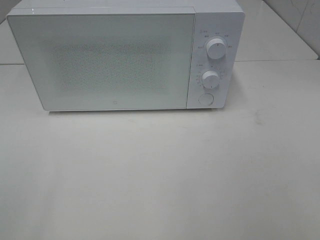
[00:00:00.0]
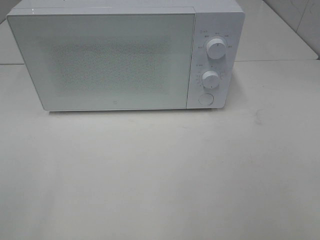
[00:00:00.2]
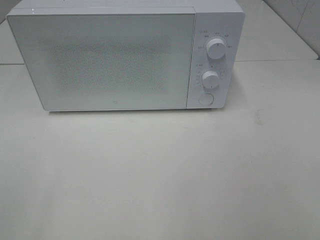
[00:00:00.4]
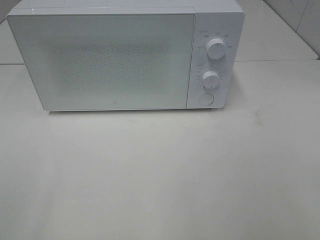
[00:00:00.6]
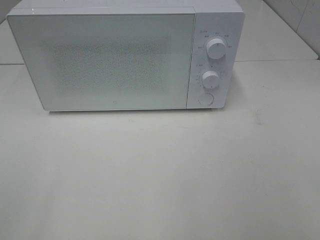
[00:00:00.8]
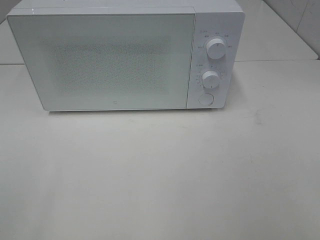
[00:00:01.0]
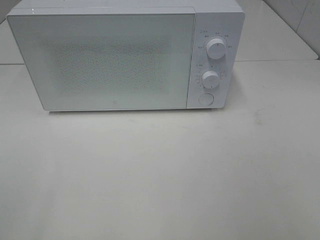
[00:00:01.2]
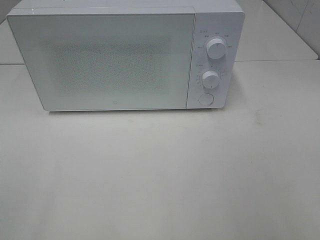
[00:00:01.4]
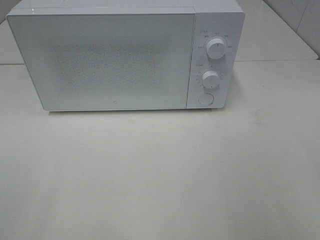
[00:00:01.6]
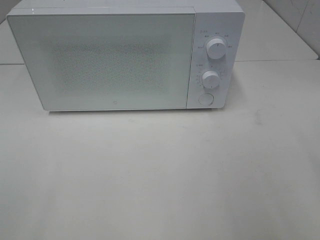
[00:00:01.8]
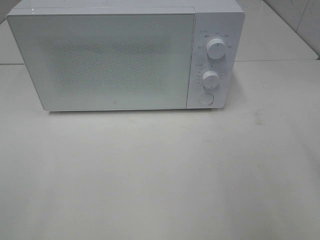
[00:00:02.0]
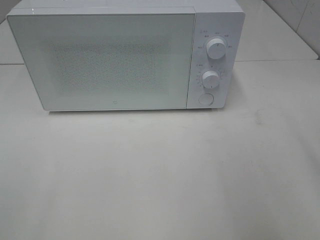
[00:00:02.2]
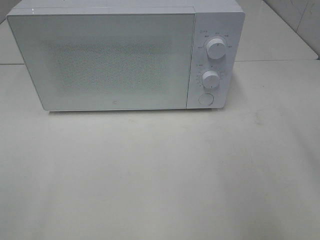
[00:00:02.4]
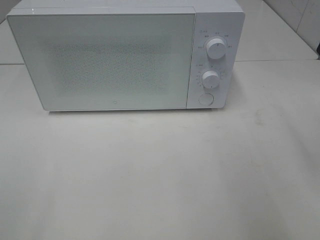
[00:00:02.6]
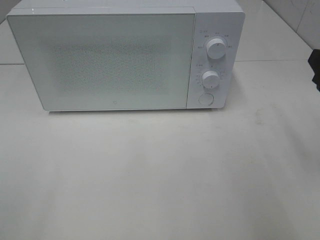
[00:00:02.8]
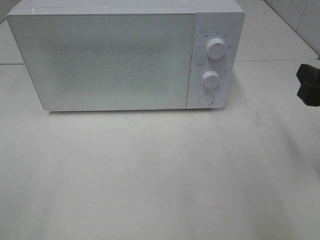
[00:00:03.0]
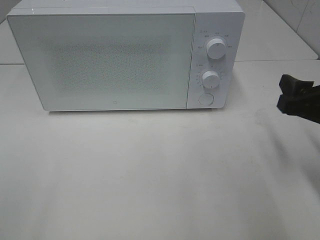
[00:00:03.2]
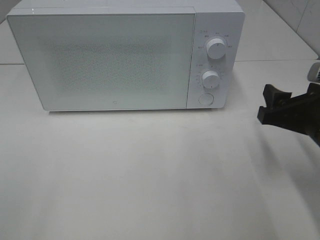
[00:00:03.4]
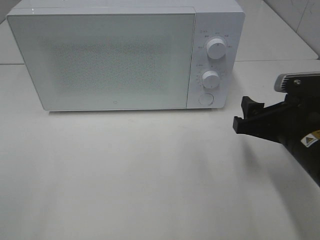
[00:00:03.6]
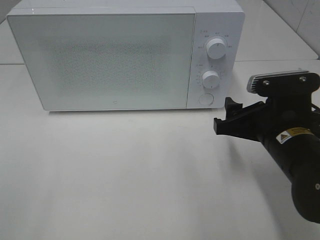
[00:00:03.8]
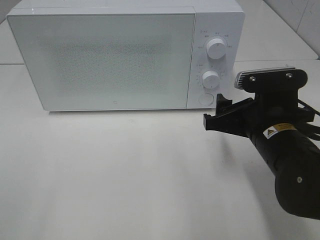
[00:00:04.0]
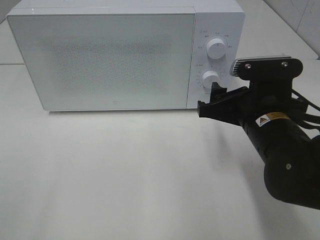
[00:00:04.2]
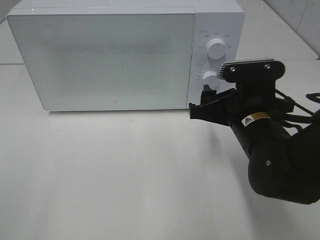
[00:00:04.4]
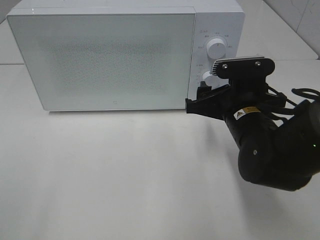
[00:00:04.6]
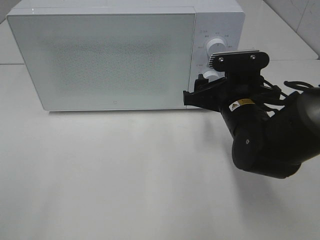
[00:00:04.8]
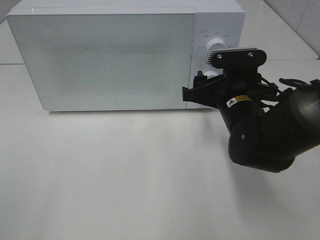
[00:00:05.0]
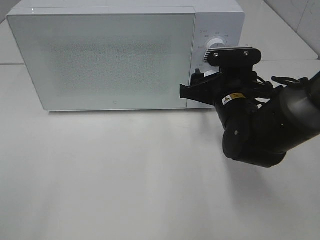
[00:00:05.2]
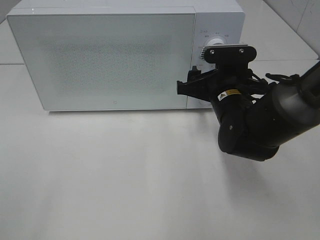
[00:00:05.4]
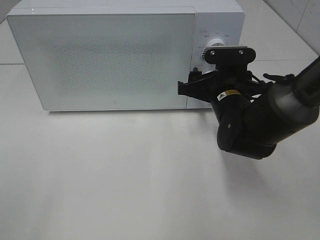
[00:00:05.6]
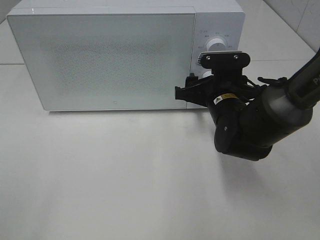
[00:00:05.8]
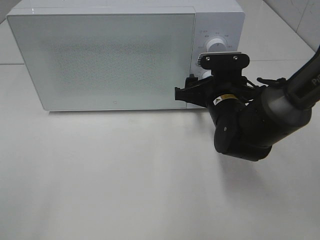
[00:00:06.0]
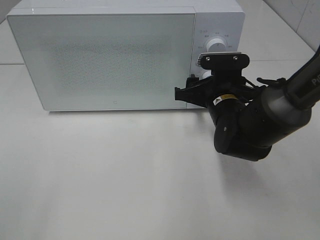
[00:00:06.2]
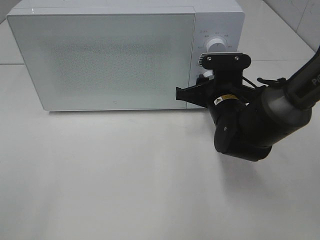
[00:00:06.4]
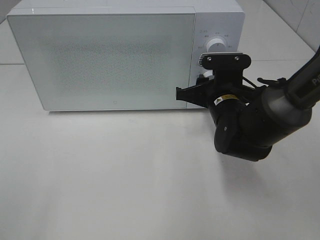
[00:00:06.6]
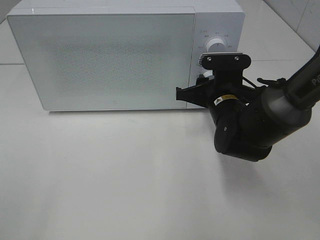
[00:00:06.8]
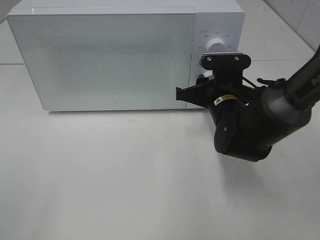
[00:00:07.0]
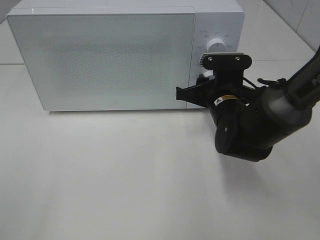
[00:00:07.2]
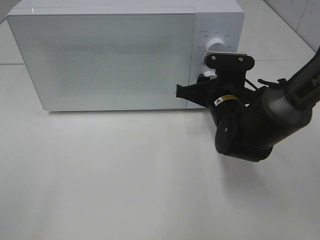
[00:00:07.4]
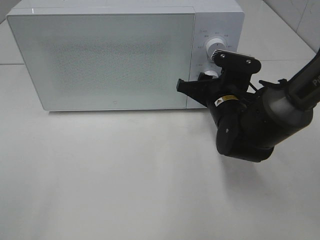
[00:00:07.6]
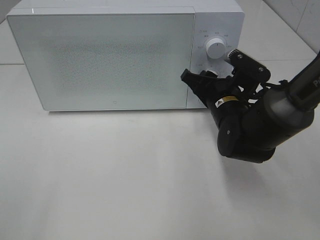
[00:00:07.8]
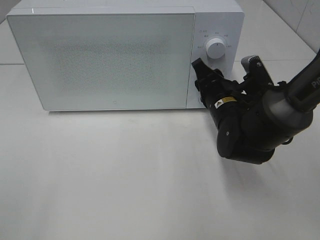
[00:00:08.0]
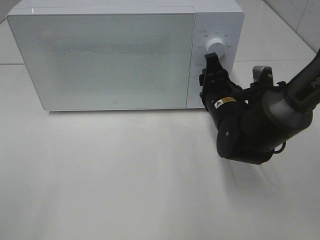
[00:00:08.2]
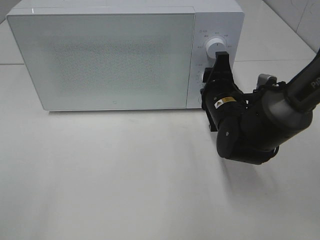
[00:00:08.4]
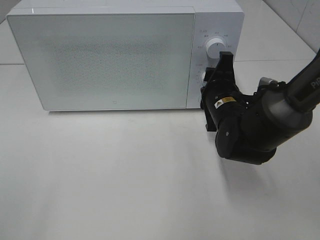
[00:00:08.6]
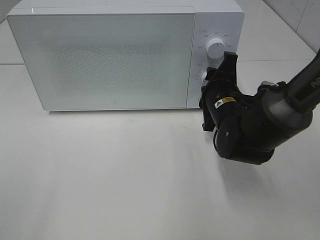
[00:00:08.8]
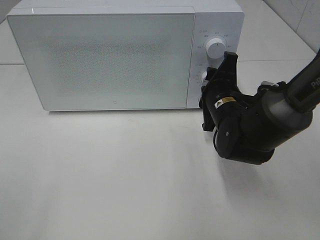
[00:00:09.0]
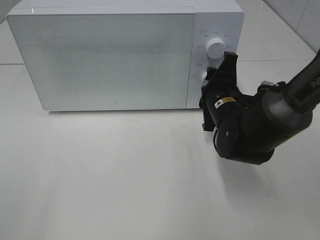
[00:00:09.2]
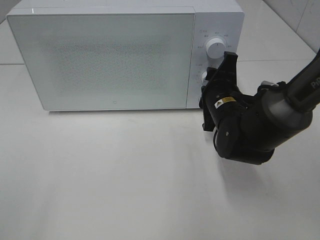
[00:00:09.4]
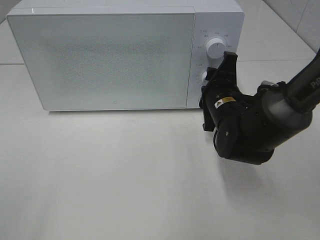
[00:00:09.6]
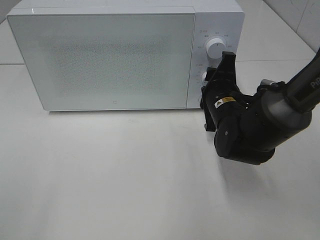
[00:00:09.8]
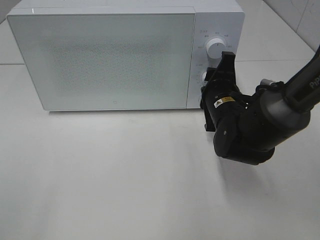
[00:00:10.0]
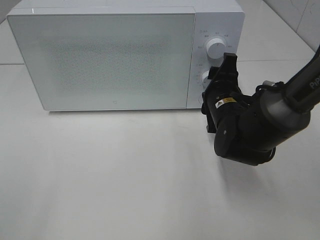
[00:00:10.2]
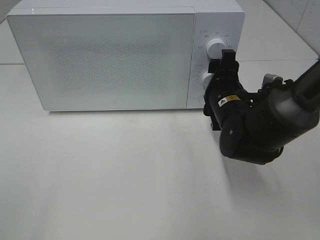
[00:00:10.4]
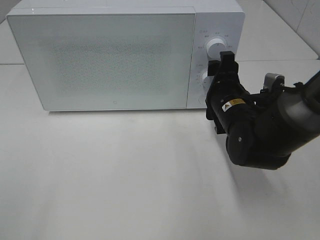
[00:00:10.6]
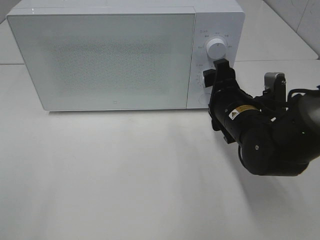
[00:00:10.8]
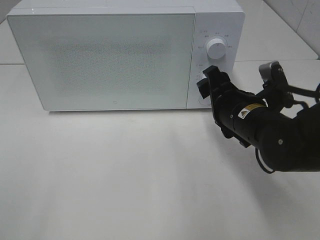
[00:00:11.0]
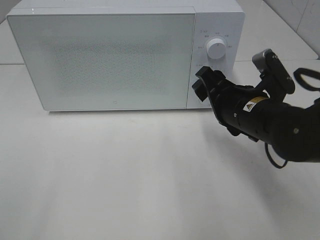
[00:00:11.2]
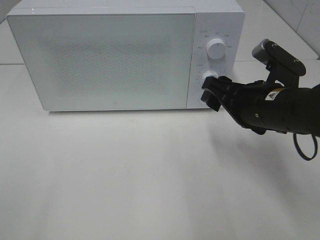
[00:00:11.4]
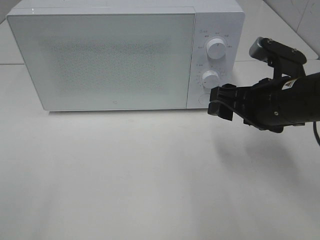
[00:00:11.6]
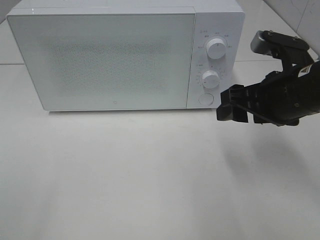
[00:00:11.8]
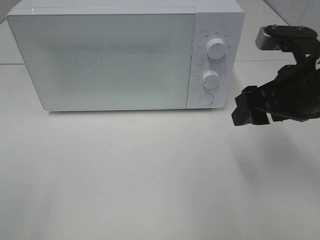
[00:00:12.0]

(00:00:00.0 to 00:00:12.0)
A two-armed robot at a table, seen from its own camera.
Task of the whole recording: Heat the burger.
Step, 00:00:00.0 - 00:00:10.2: Right hand: twist timer button.
00:00:01.6 - 00:00:03.0: The right gripper travels forward and downward by approximately 15 cm.
00:00:03.0 - 00:00:04.4: The right gripper heads to the left, covering approximately 15 cm.
00:00:04.4 - 00:00:06.0: The right gripper heads forward, covering some 10 cm.
00:00:06.0 - 00:00:07.6: The right gripper closes.
00:00:09.0 - 00:00:10.4: There are only small adjustments of the grippers.
00:00:10.4 - 00:00:12.0: The right gripper travels upward, backward and to the right by approximately 15 cm.

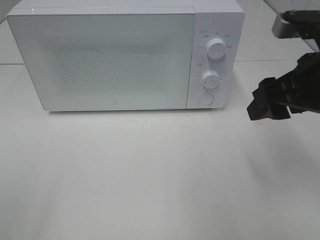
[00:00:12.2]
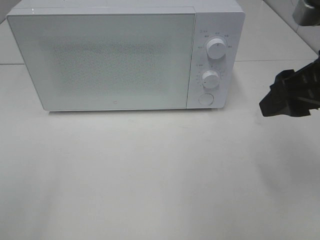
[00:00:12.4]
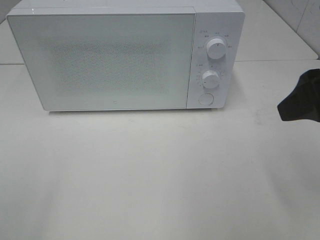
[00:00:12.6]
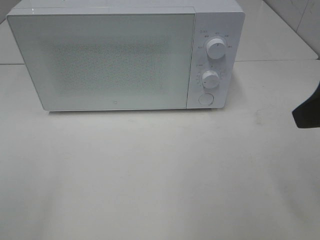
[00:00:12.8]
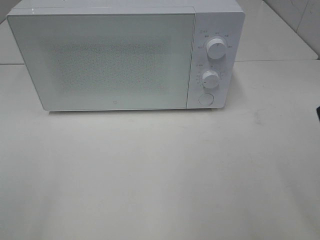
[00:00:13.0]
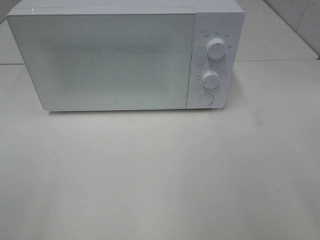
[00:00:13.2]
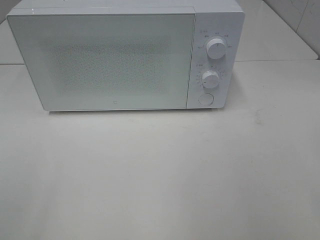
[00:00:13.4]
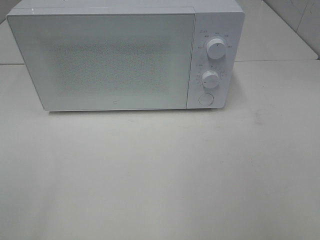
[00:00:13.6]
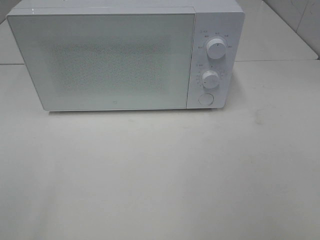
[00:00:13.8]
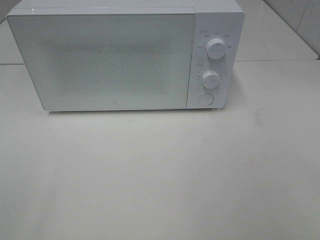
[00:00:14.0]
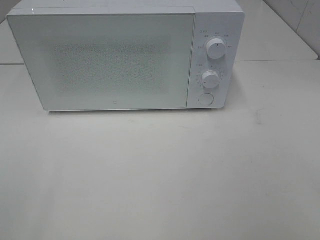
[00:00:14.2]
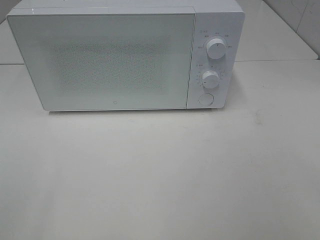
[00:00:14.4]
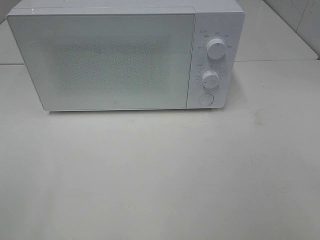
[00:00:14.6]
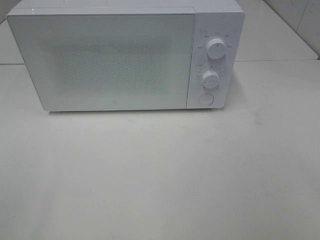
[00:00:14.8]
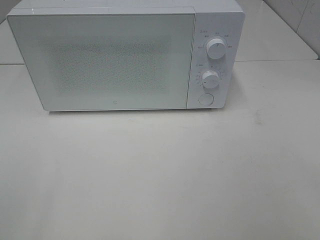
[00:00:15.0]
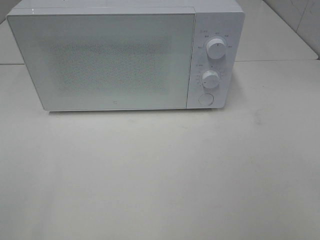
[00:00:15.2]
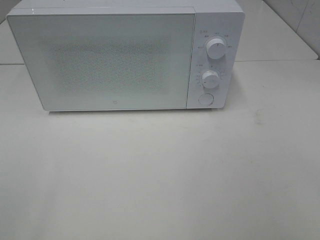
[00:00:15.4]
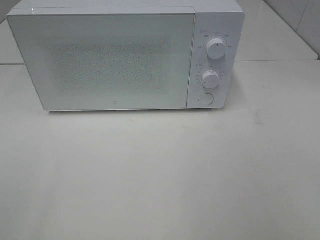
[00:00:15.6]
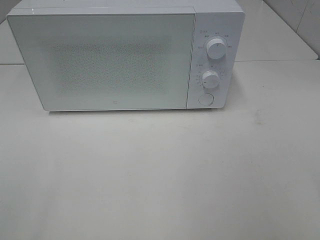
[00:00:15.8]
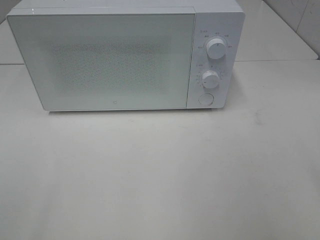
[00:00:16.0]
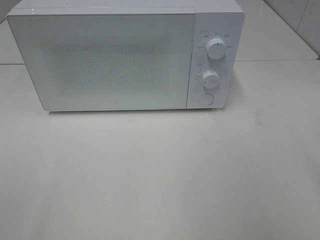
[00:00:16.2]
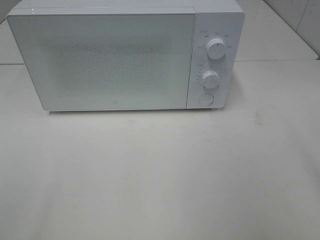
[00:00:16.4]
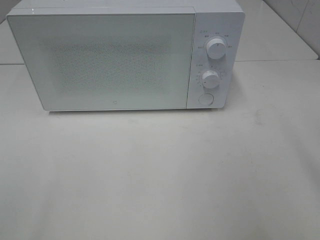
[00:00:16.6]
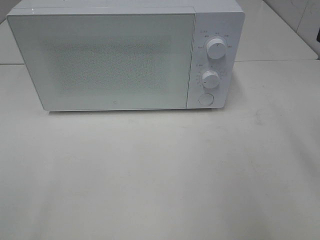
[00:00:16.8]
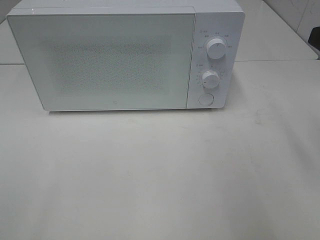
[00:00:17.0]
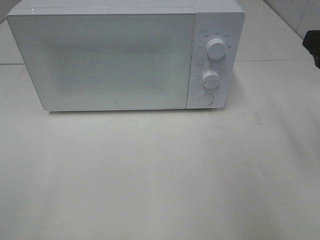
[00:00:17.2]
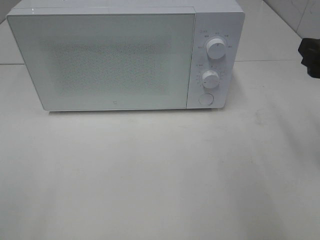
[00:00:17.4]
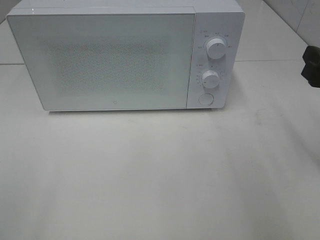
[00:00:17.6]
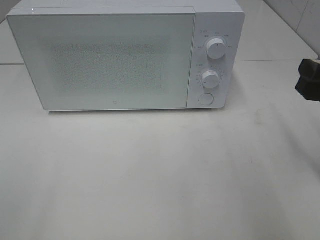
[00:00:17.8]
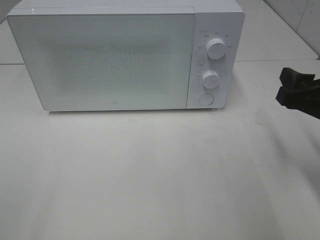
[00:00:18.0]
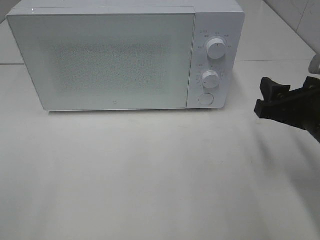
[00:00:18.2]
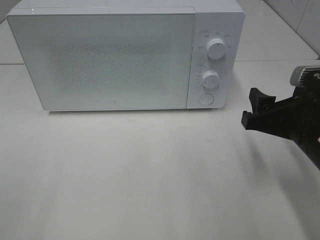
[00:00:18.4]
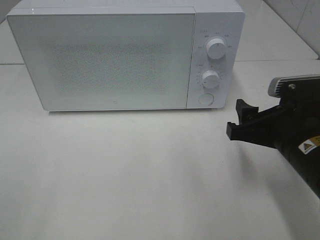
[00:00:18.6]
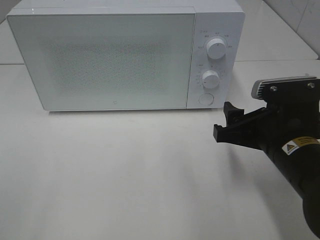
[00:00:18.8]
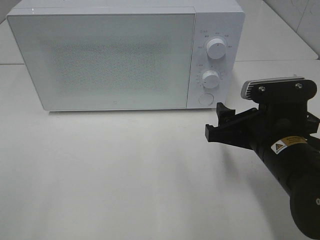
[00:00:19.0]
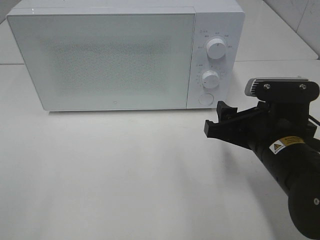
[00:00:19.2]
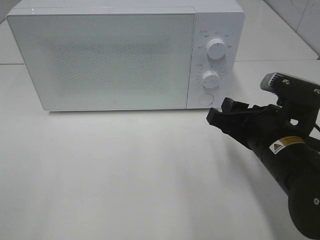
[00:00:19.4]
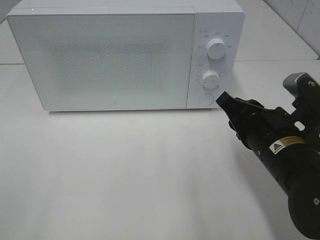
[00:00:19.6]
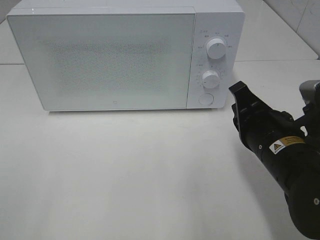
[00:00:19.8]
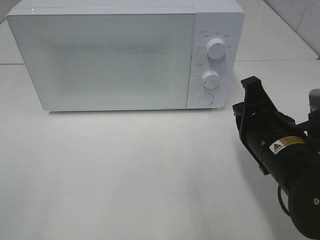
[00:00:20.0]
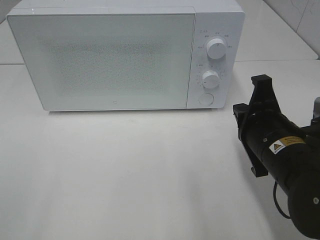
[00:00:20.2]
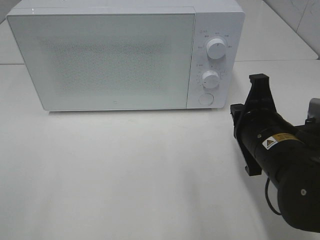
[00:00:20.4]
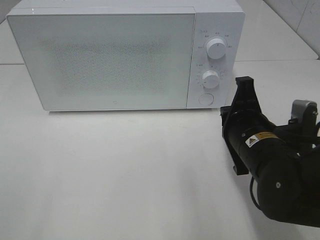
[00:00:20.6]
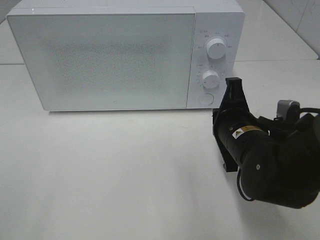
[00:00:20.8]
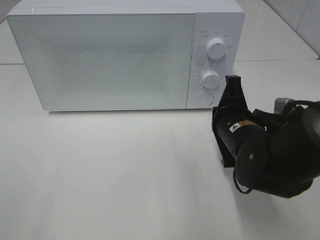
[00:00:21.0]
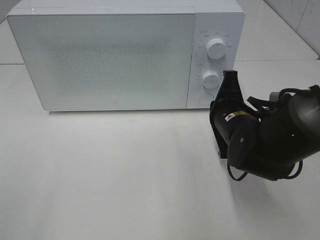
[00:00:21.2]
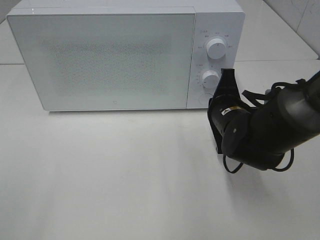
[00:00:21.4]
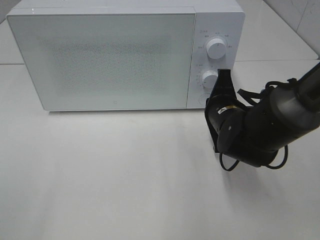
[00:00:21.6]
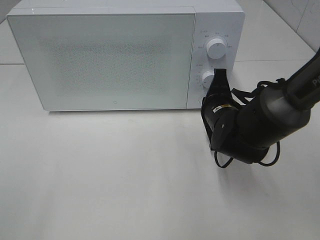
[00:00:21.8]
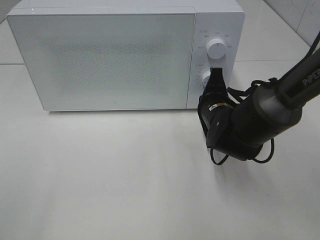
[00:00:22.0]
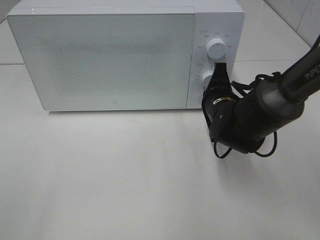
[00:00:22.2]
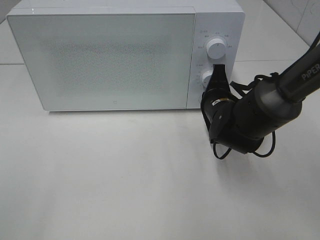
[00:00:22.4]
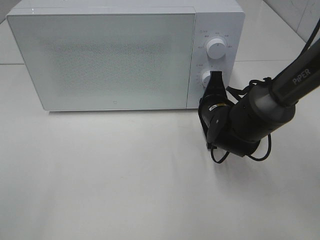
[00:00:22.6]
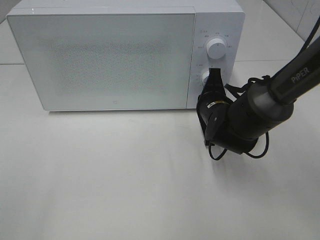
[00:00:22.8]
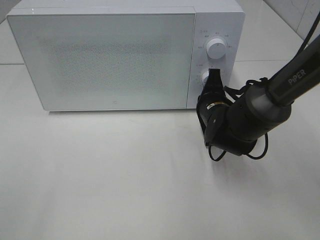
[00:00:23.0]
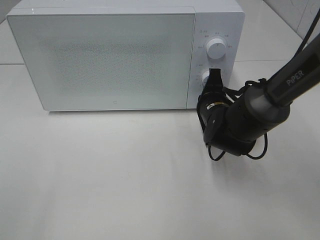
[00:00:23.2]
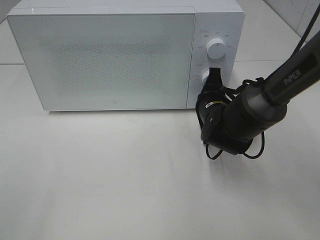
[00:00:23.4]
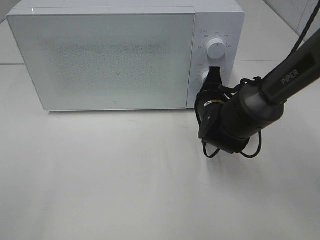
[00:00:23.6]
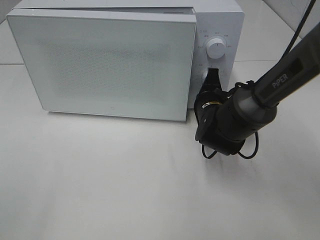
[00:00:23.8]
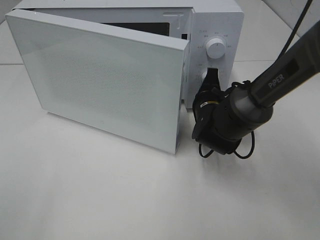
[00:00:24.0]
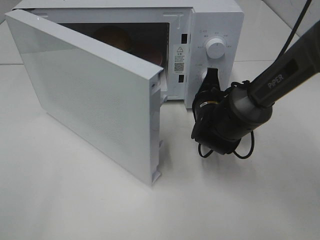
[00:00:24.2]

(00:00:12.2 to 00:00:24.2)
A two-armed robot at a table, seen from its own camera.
Task of the whole recording: Heat the burger.
00:00:12.2 - 00:00:13.8: The right gripper moves backward, roughly 20 cm.
00:00:16.6 - 00:00:18.2: The right gripper moves downward, some 15 cm.
00:00:18.2 - 00:00:19.8: The right gripper goes approximately 5 cm to the left, and closes its fingers.
00:00:19.8 - 00:00:21.2: The right gripper travels forward by roughly 10 cm.
00:00:21.2 - 00:00:22.6: The right gripper moves forward, about 5 cm.
